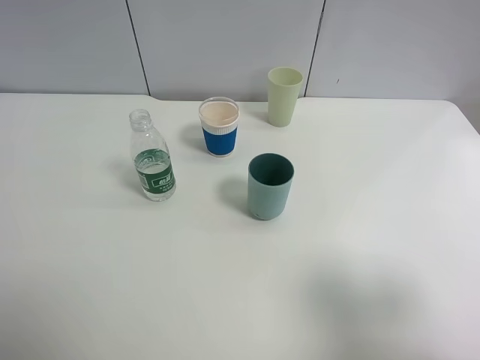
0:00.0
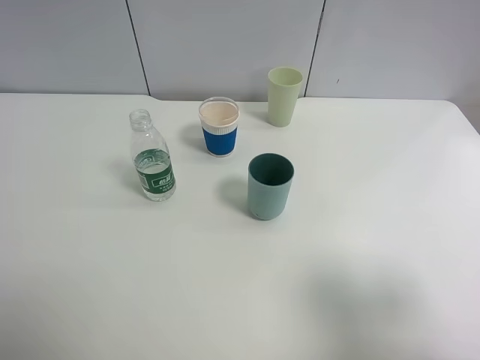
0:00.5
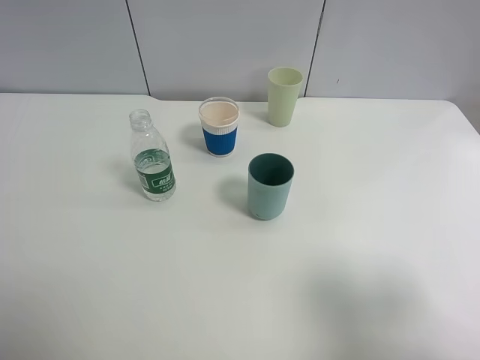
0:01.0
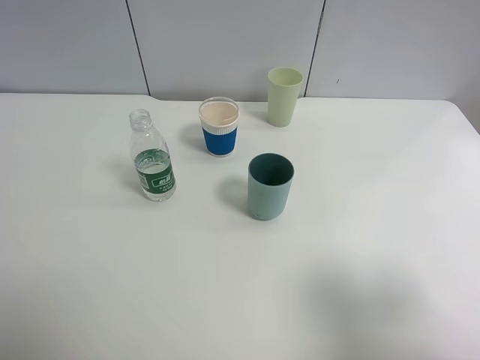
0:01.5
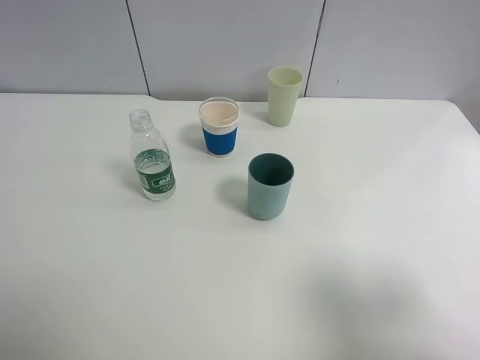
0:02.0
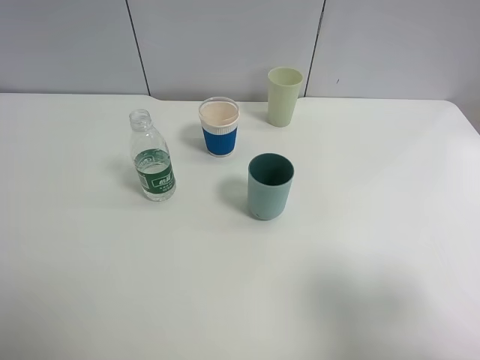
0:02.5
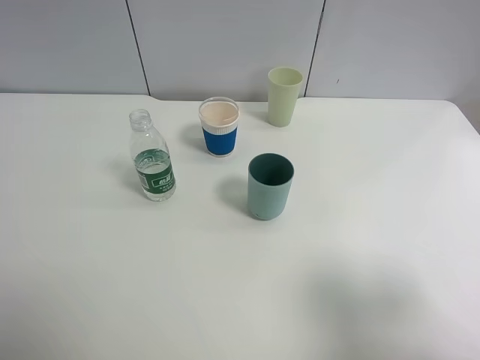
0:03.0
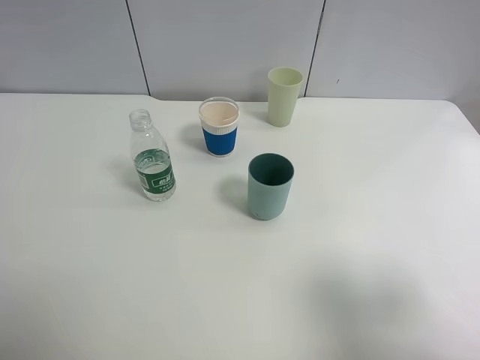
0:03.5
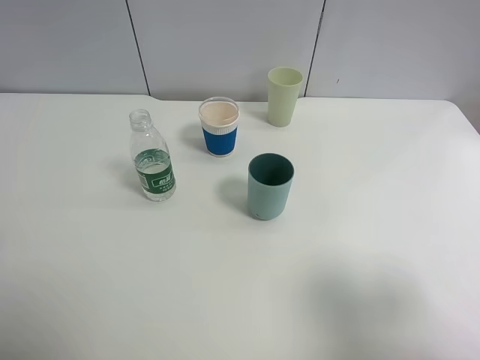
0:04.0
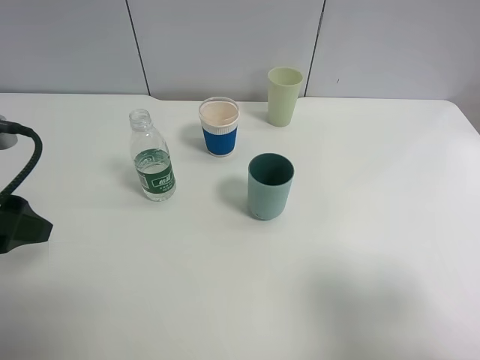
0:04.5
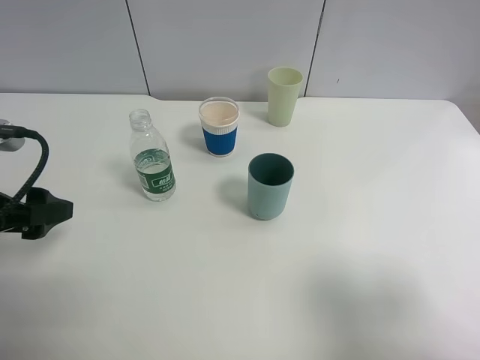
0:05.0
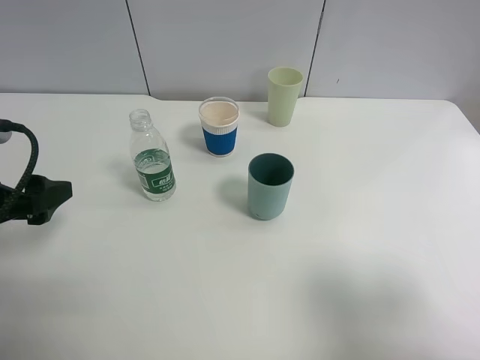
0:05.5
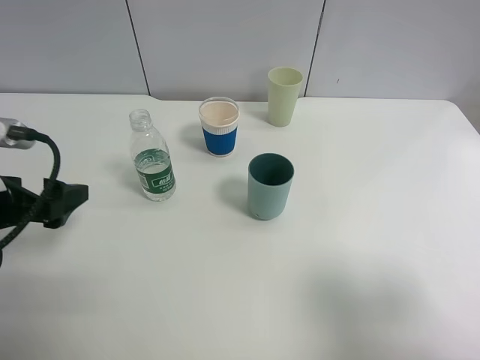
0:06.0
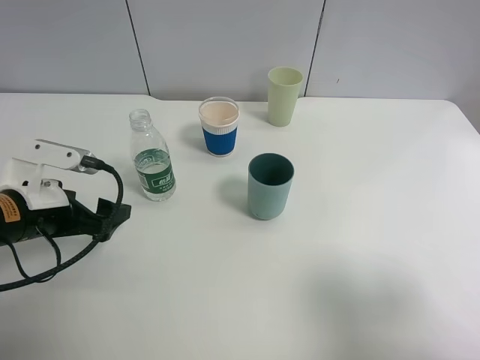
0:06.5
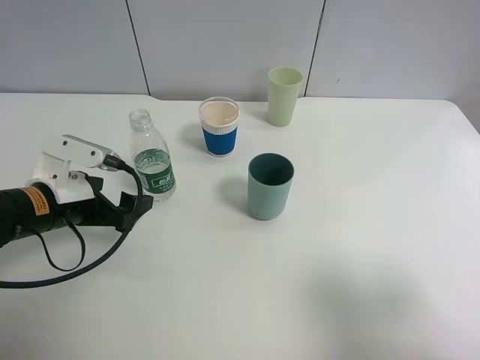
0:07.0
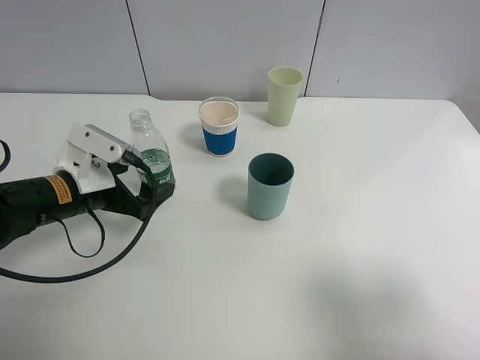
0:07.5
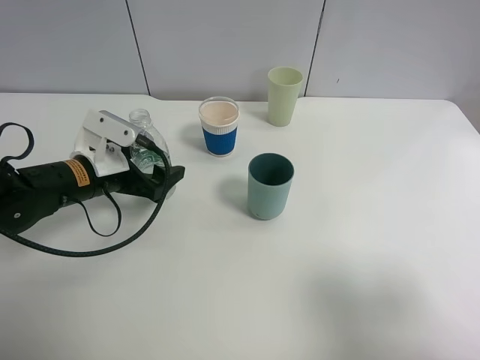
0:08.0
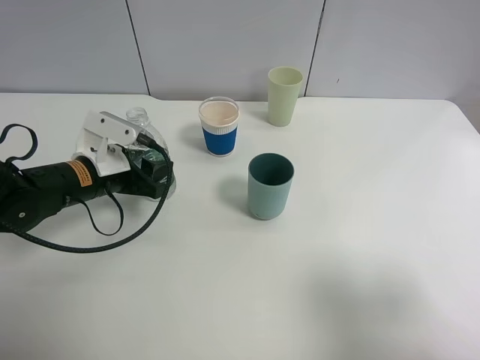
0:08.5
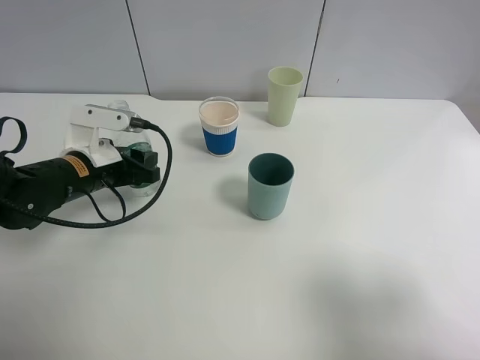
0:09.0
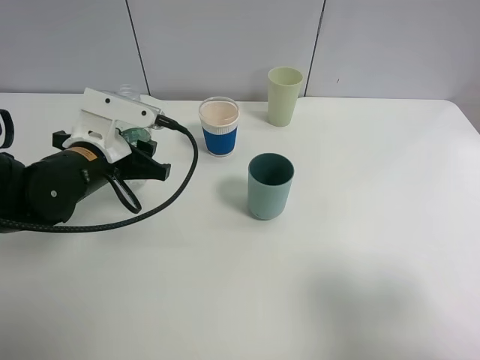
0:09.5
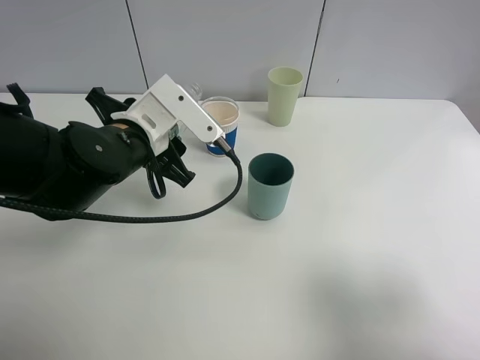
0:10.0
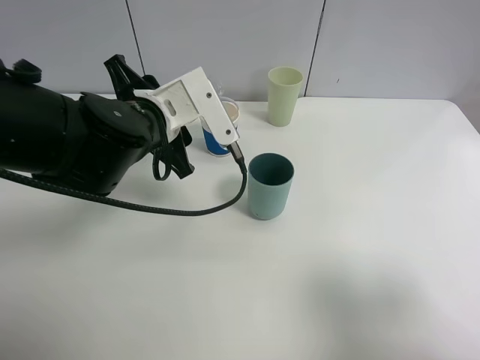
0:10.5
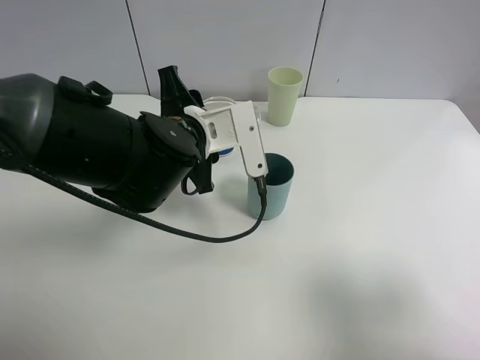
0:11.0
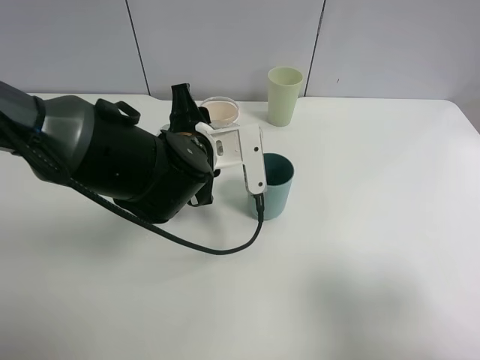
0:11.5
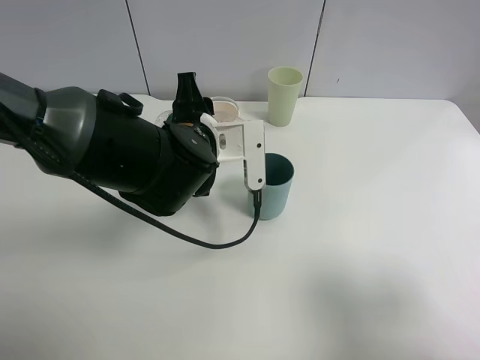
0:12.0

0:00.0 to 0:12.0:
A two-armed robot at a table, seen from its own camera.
Task of the whole recording: use a clamp to hold the bottle of the drink, pour the beverage into a random cup, then clamp the cup containing the drink and pour the drink into another random cup.
Step, 0:00.0 to 0:10.5: Pick up the water bottle with left gripper.
0:00.0 to 0:02.0: Both grippers stay put.
0:04.0 to 0:06.0: The left gripper is displaced downward and forward by some 15 cm.
0:06.0 to 0:08.0: The left gripper shifts approximately 15 cm forward, downward and to the right.
0:08.0 to 0:10.0: The left gripper shifts about 10 cm to the right and upward, and closes.
0:10.0 to 0:12.0: The left gripper shifts about 5 cm to the right.

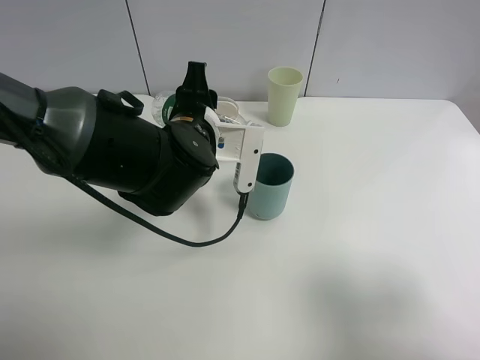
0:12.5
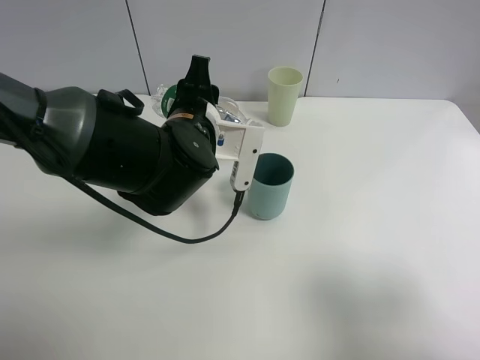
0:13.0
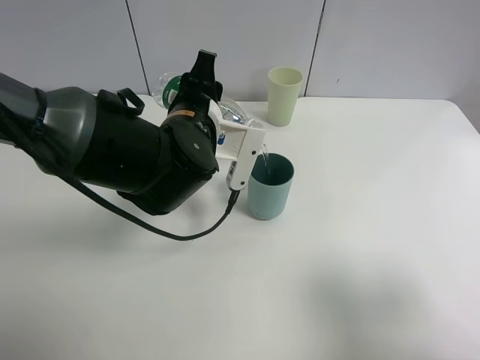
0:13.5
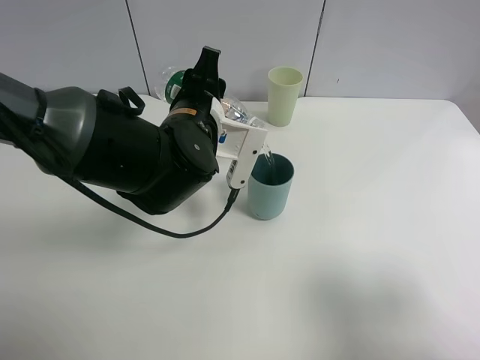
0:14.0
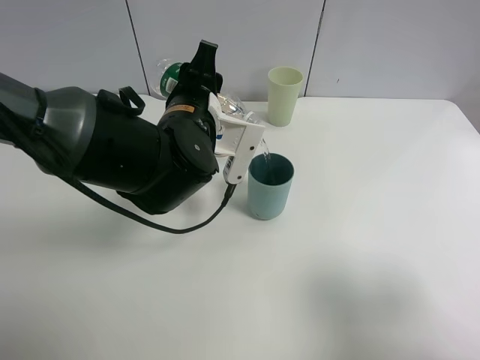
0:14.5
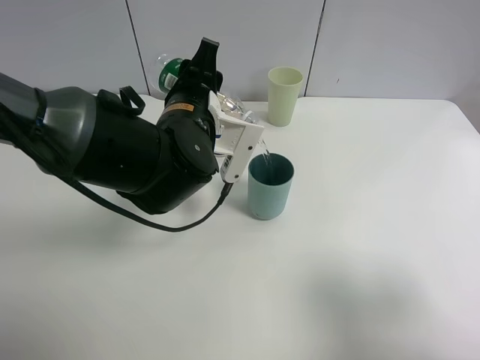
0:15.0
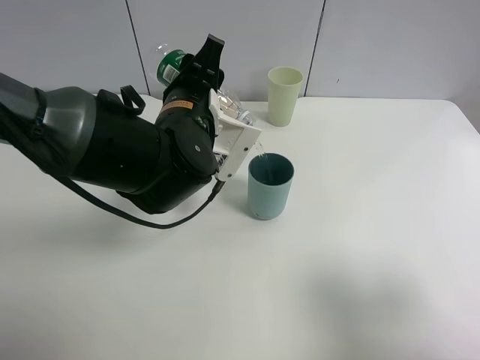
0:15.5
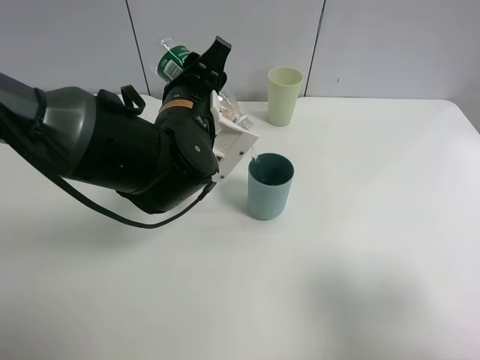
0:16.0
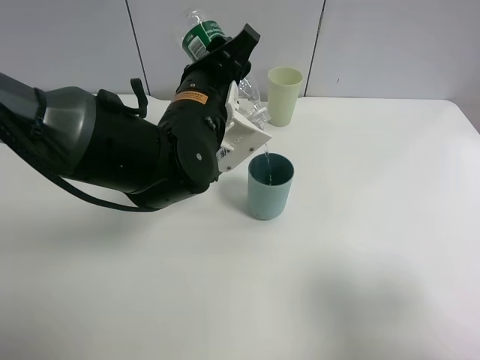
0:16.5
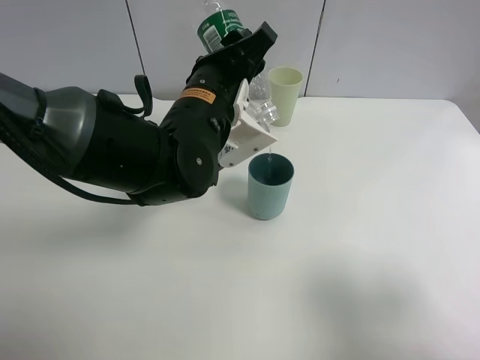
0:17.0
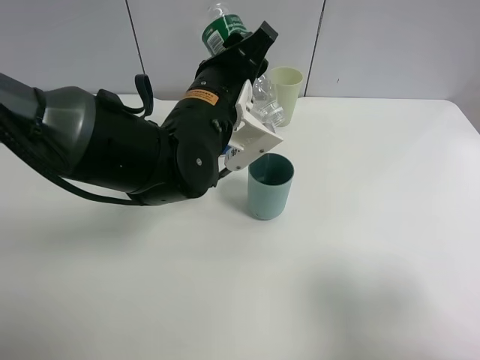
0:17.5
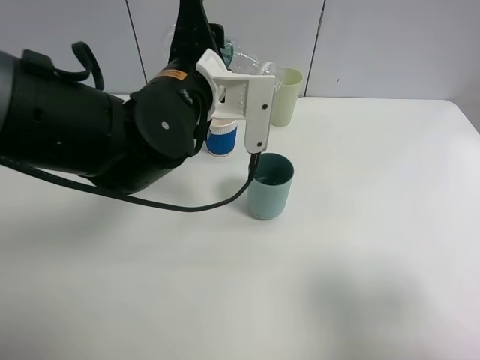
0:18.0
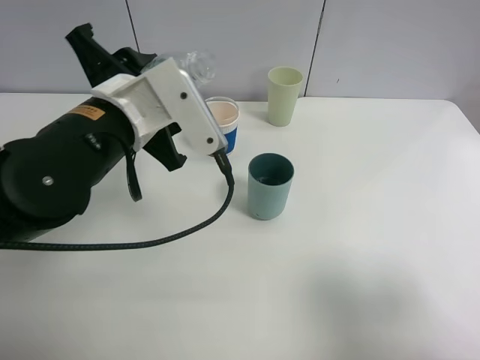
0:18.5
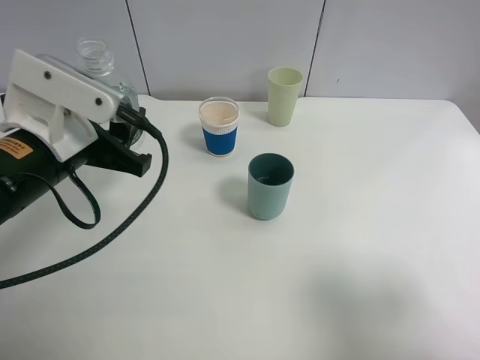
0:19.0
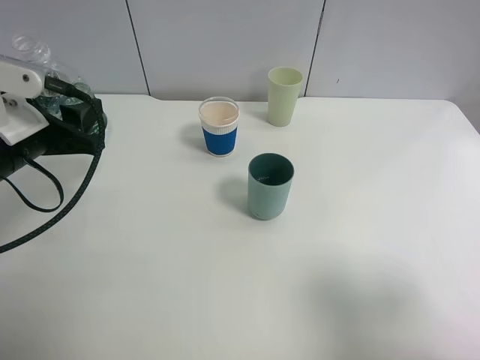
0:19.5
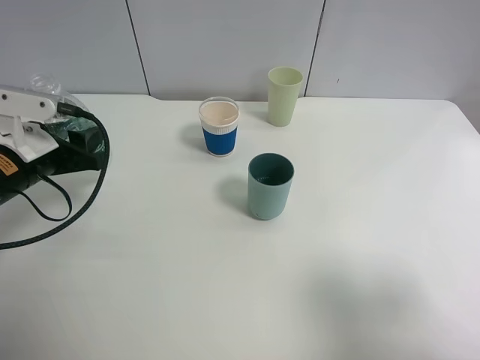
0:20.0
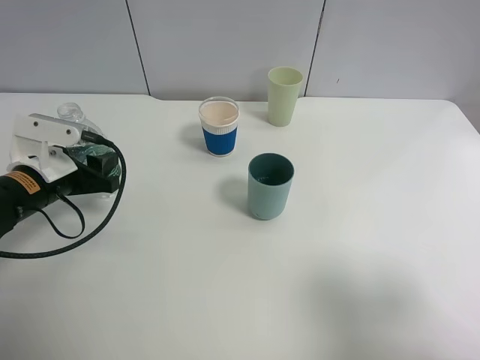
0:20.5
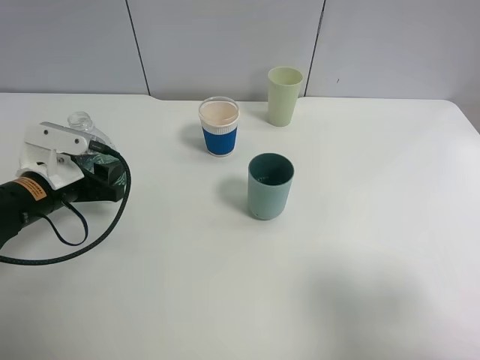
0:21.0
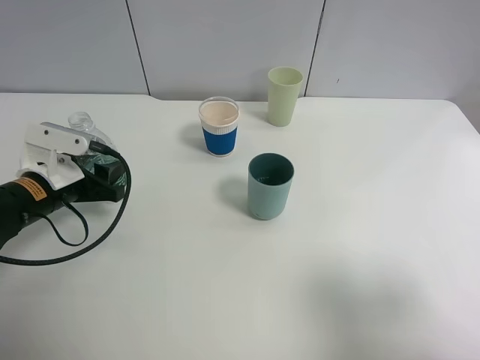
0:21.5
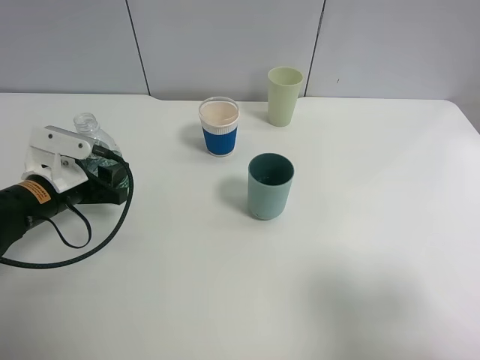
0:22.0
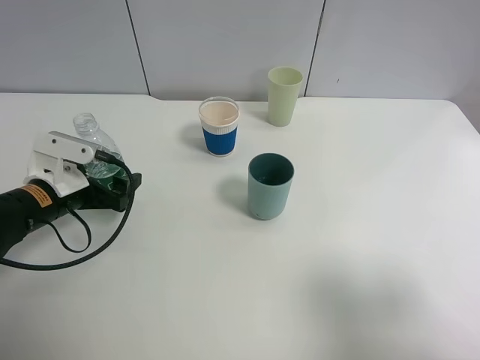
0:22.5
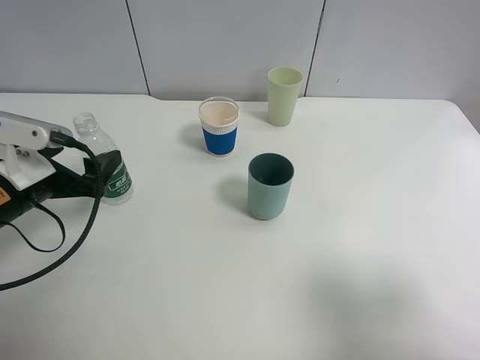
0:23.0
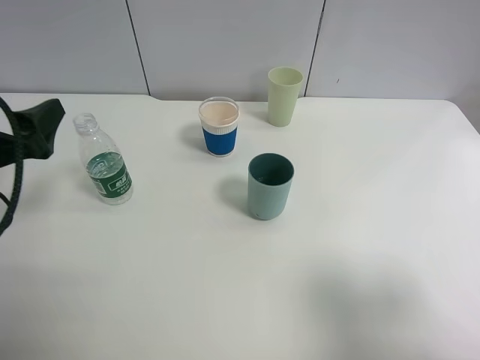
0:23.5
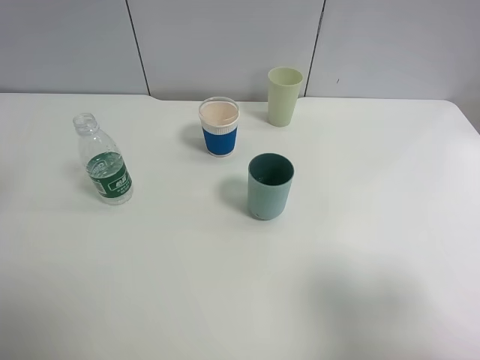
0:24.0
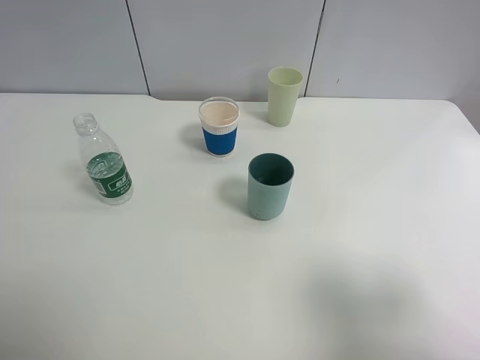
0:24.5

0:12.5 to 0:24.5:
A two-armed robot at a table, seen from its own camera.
Task of the whole recording: use a clamp to hold the bottle of the drink, pour the beverage into a random cup, then clamp the cup containing the drink and pour the drink into another random cup.
Step, 0:12.5 to 0:18.0: Pour the water into the blue plastic cup with left gripper.
Step, 0:18.5 to 0:23.0: Place the water bottle on the table with left gripper.
0:12.5 to 0:14.5: The grippers stay close to where they were, moving slightly.
0:16.5 to 0:18.5: The left gripper goes about 10 cm to the left and backward.
0:18.5 to 0:20.5: The left gripper travels to the left and downward by about 15 cm.
0:20.5 to 0:22.5: The left gripper opens its fingers.
0:22.5 to 0:24.5: The left gripper goes some 30 cm upward and backward.

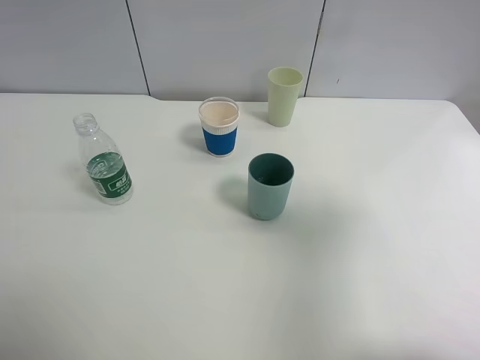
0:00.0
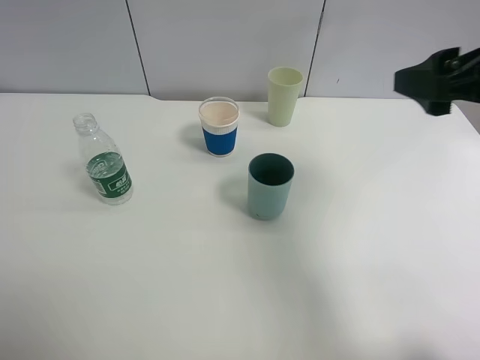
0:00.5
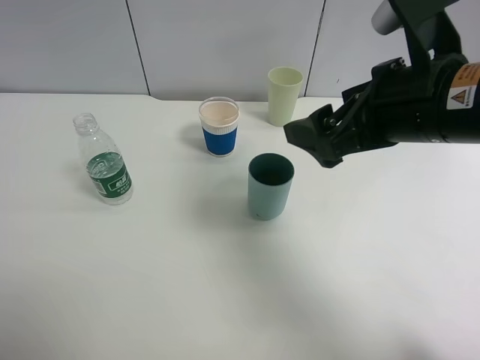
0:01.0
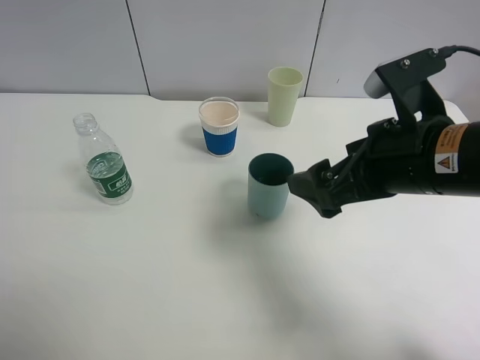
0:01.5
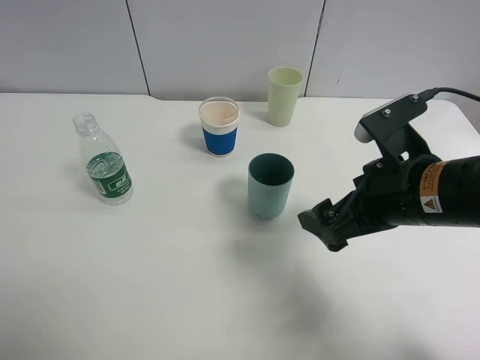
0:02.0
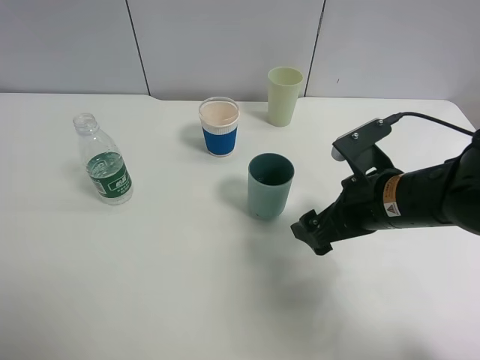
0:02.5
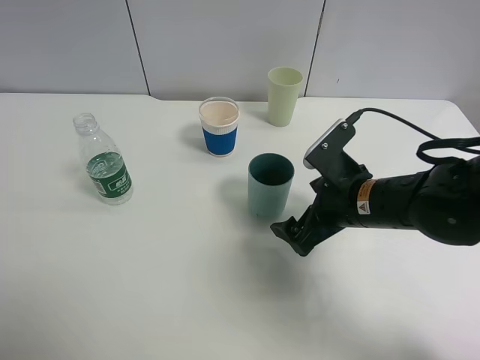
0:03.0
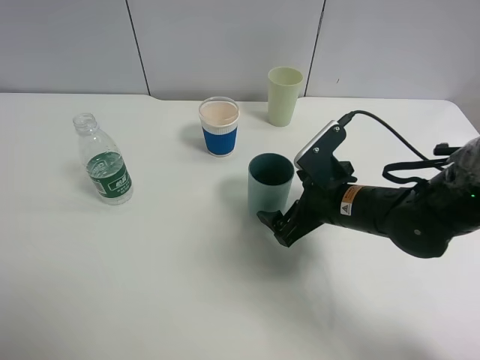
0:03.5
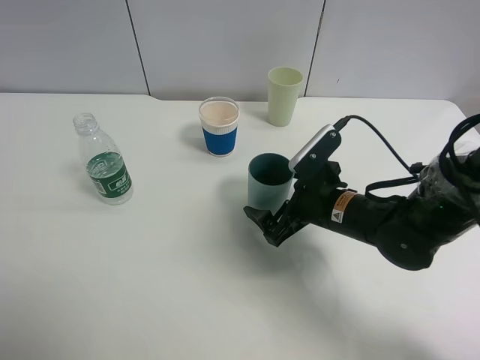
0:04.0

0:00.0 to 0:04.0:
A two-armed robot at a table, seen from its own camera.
Task of the whole recording: use a clamp to hold the bottle of the drink, pour the beverage into a random cup, then clamp the cup containing the drink and pour the drink into another random cup.
0:00.0 to 0:02.0: The right gripper shifts roughly 20 cm downward, to the left and forward.
0:02.0 to 0:04.0: The right gripper goes approximately 15 cm downward and forward.
